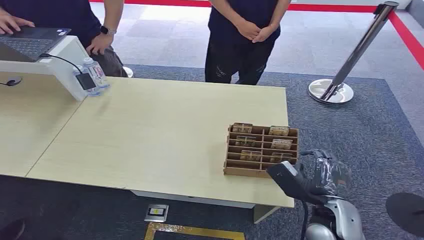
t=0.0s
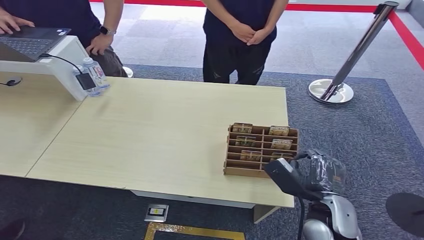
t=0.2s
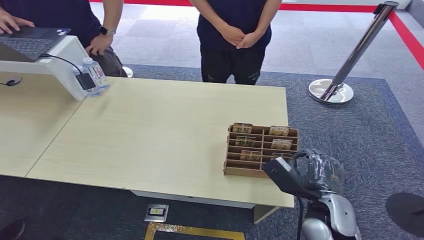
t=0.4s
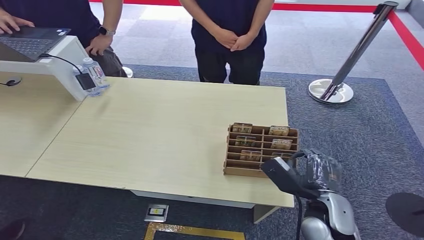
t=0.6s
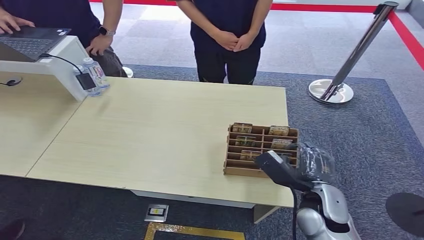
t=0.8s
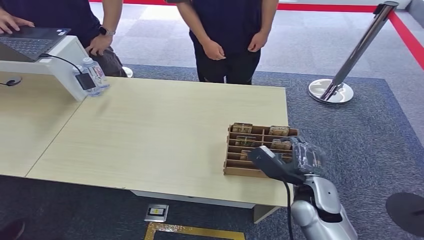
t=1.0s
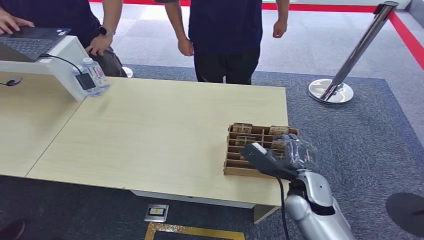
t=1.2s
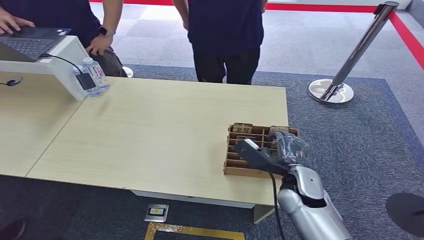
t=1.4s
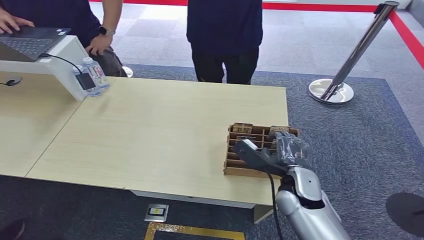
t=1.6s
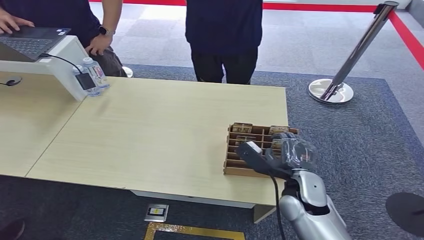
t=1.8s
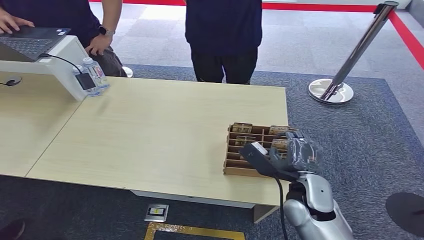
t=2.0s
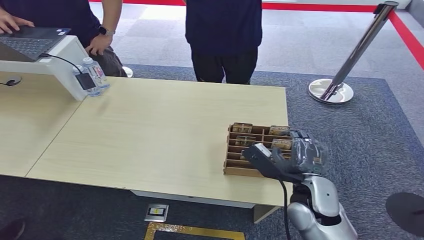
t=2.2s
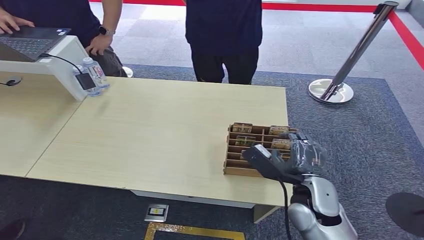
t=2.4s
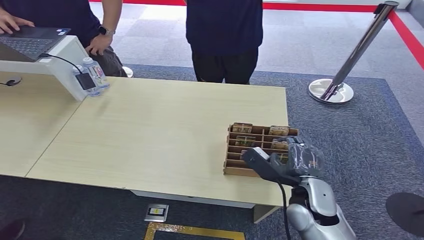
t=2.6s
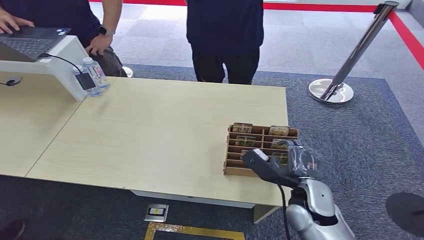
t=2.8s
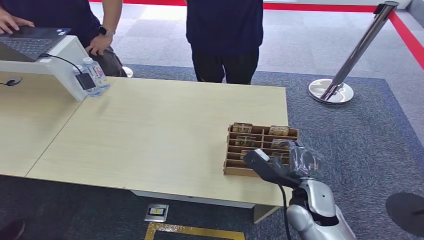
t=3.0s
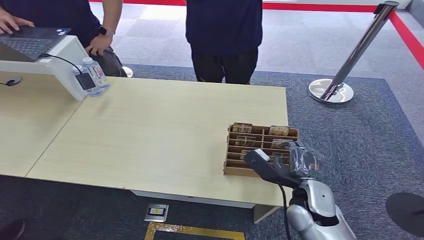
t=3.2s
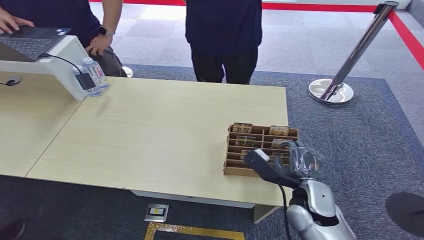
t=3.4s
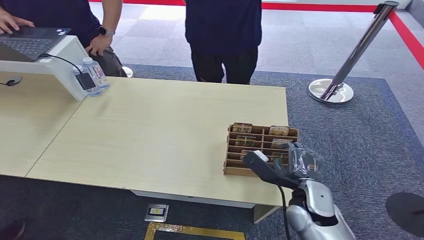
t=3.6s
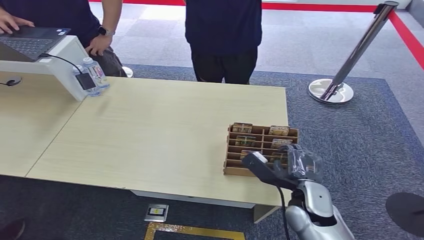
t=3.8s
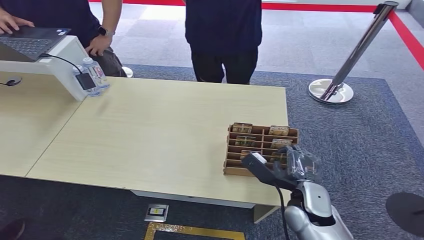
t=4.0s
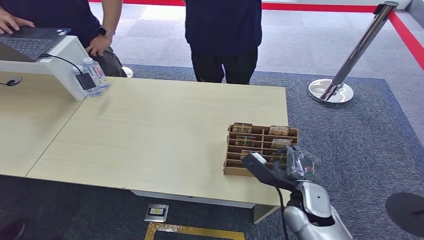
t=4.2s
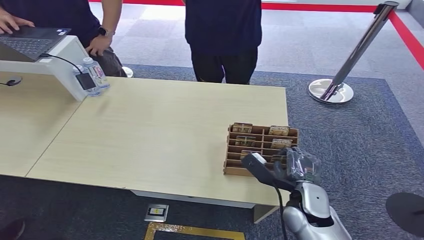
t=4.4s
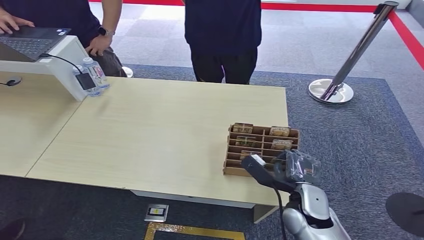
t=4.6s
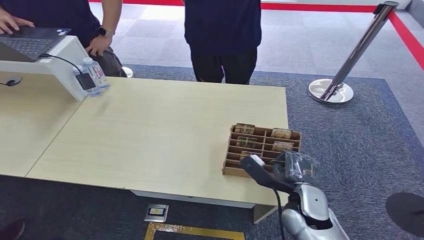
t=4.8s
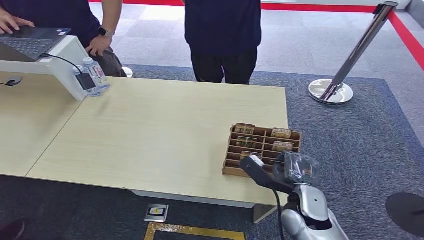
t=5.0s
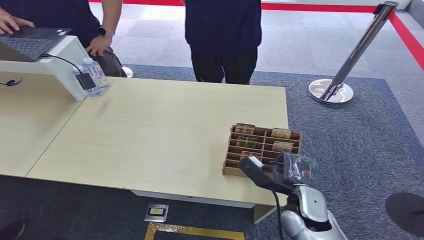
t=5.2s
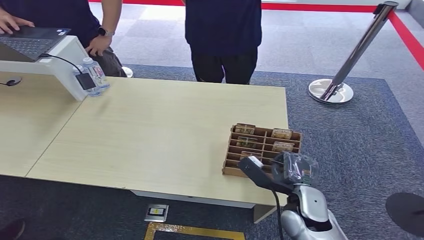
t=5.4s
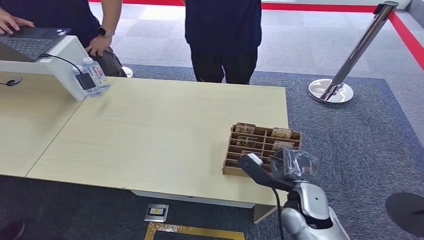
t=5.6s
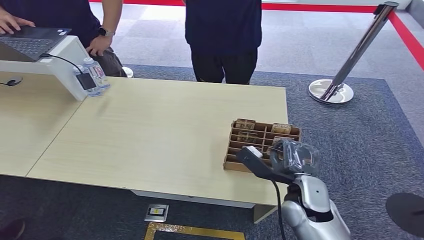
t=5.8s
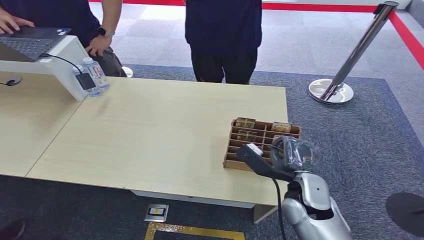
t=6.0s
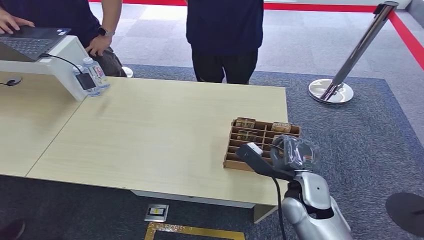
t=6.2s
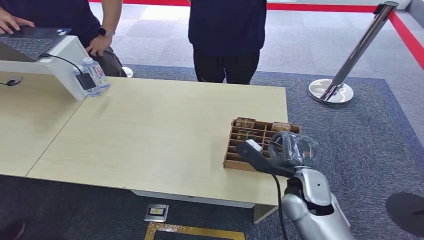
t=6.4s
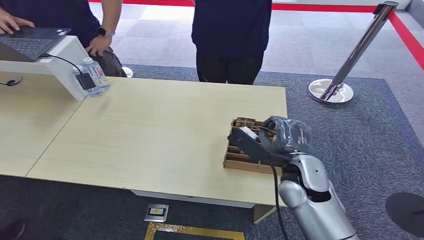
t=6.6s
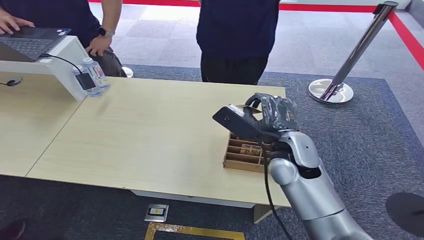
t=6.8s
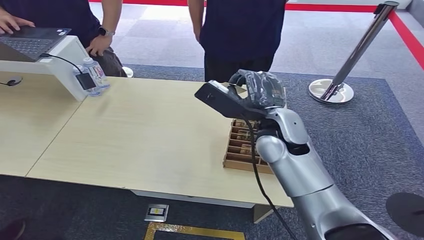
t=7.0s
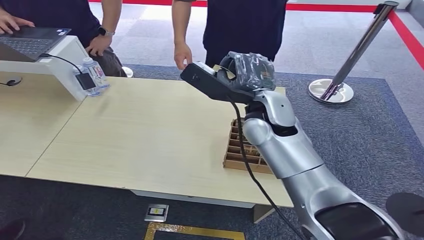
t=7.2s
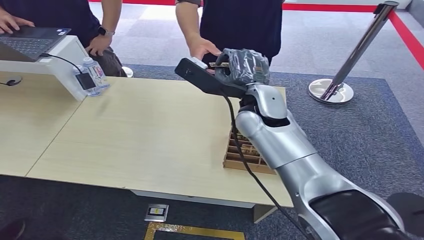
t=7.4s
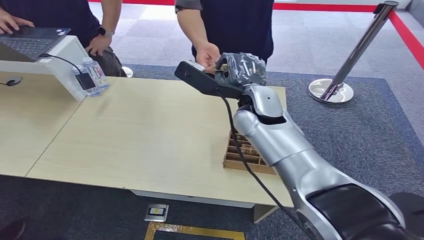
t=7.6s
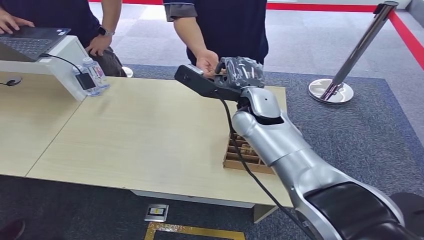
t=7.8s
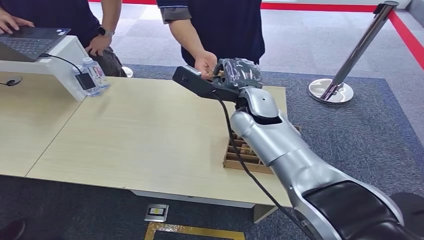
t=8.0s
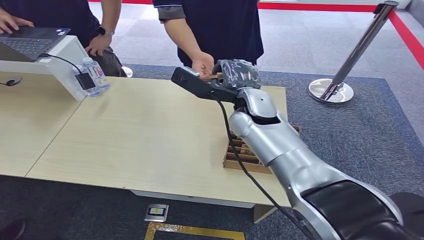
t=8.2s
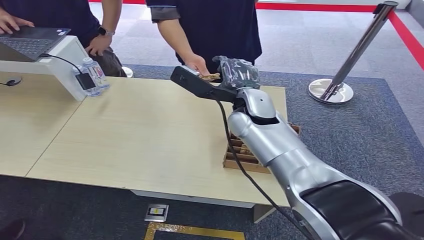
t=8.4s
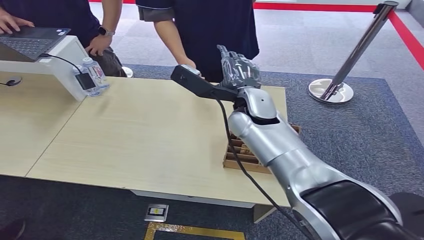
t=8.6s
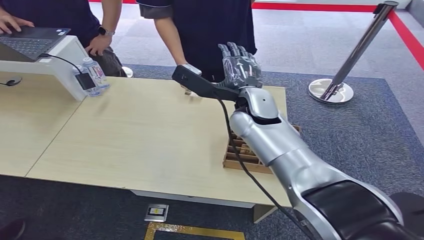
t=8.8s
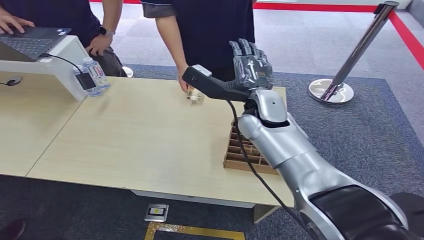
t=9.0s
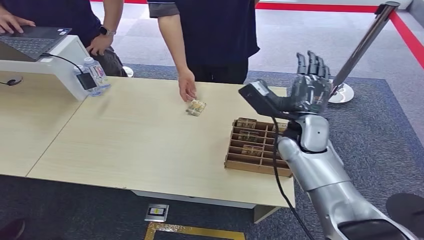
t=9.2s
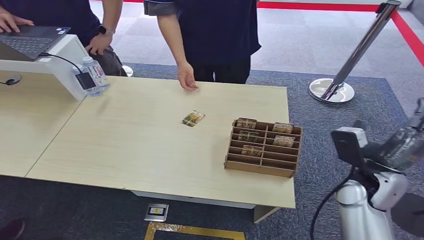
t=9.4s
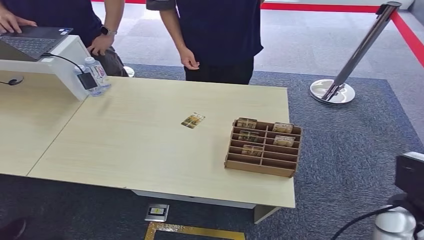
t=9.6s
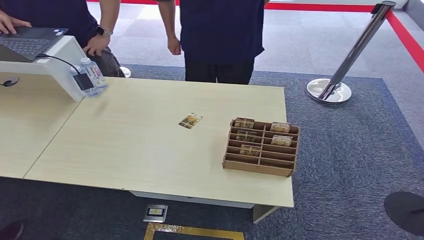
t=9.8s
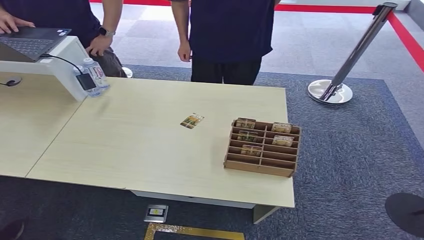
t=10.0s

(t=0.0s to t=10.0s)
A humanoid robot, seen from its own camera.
Step, t=0.0s - t=6.2s: Pick up the room card from the card holder.
Step, t=6.4s - t=10.0s: Hand the room card to the target.
t=1.4s - t=5.8s: The hands move only a little.
t=5.8s - t=7.2s: The right hand travels upward, forward and to the left by some 25 cm.
t=7.2s - t=8.6s: The hands move only a little.
t=8.6s - t=10.0s: The right hand travels to the right, backward and downward by about 60 cm.
